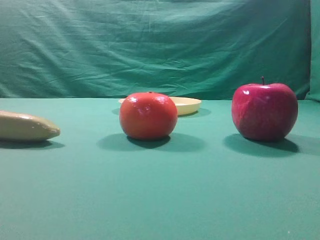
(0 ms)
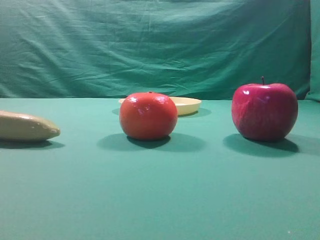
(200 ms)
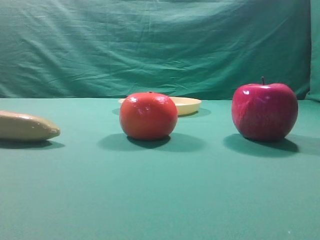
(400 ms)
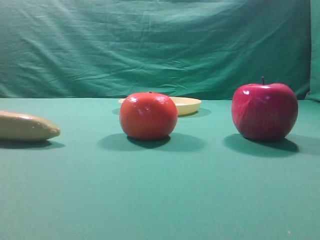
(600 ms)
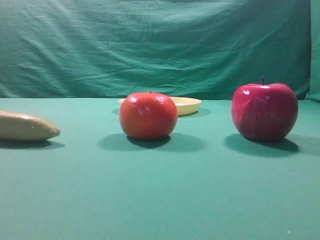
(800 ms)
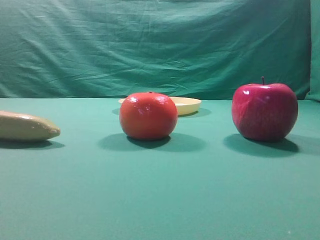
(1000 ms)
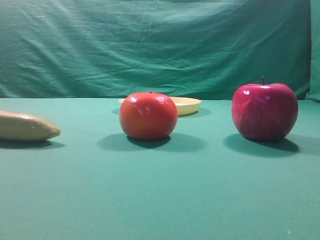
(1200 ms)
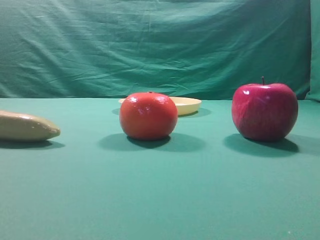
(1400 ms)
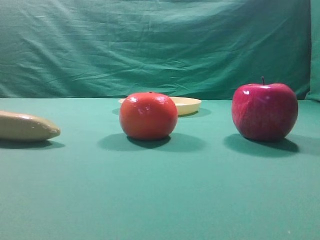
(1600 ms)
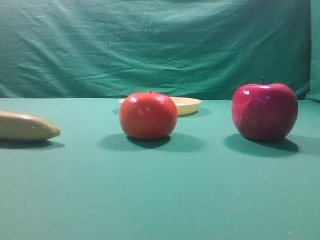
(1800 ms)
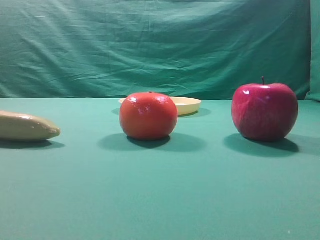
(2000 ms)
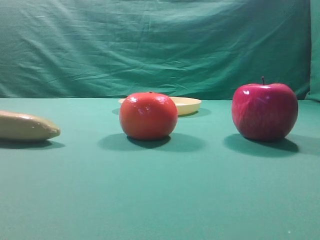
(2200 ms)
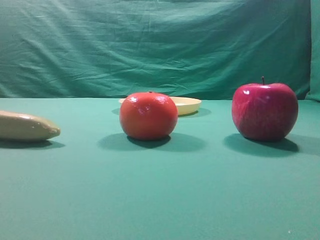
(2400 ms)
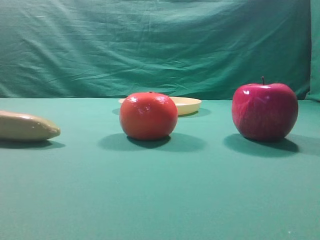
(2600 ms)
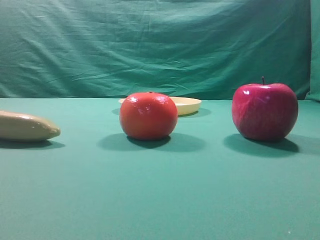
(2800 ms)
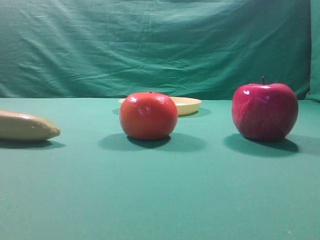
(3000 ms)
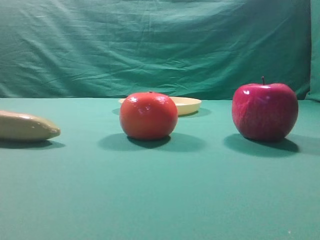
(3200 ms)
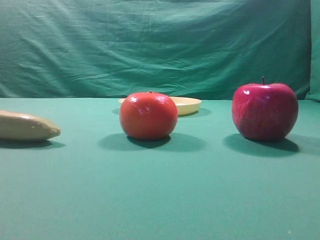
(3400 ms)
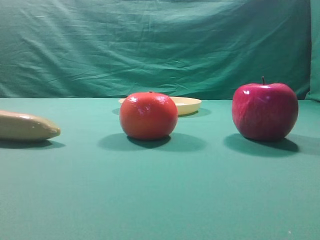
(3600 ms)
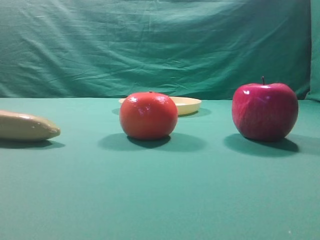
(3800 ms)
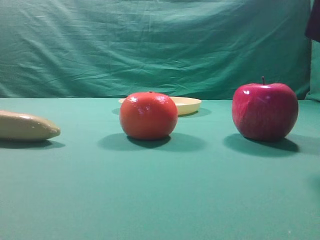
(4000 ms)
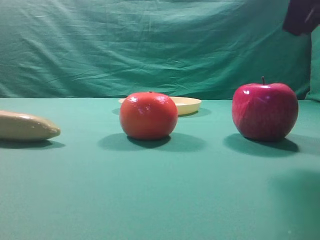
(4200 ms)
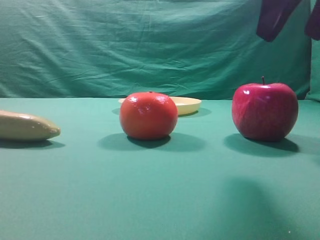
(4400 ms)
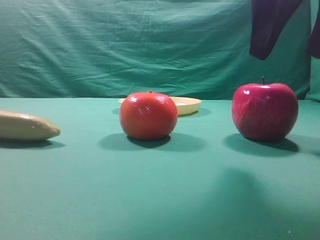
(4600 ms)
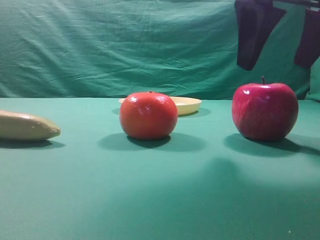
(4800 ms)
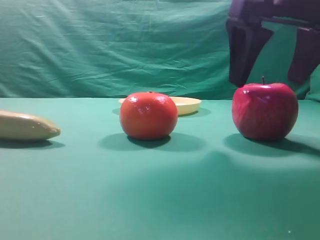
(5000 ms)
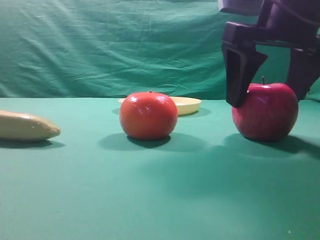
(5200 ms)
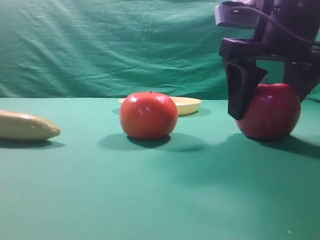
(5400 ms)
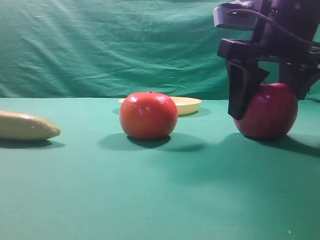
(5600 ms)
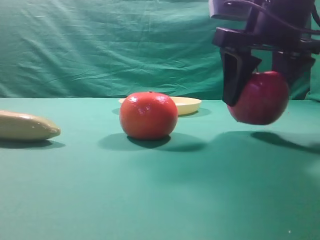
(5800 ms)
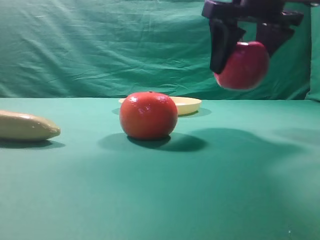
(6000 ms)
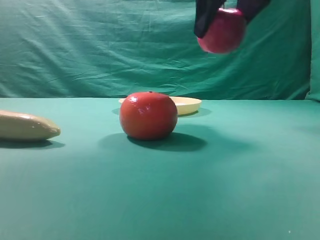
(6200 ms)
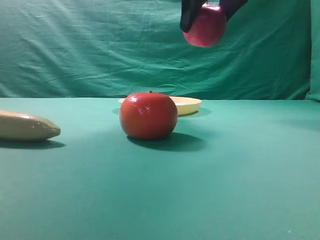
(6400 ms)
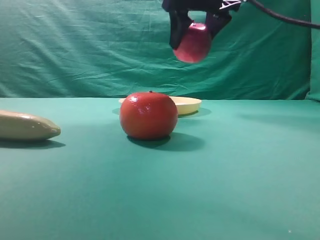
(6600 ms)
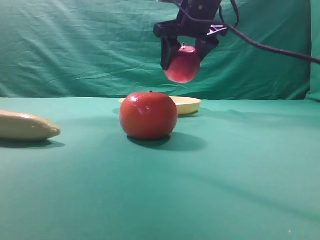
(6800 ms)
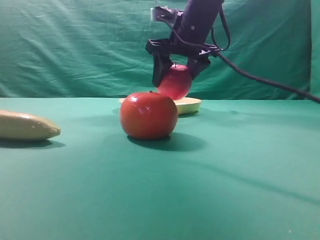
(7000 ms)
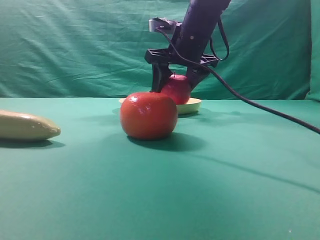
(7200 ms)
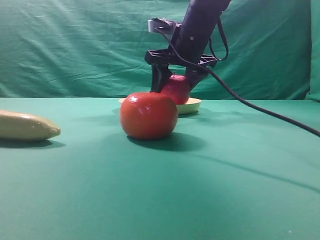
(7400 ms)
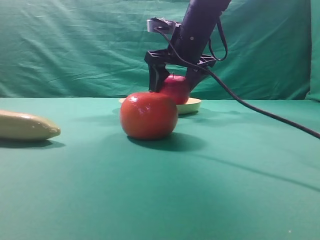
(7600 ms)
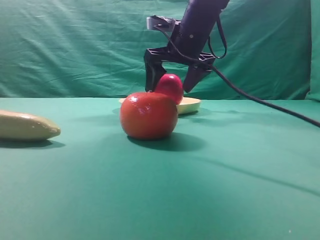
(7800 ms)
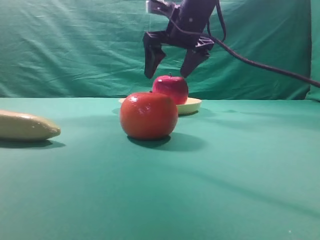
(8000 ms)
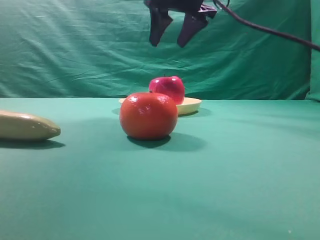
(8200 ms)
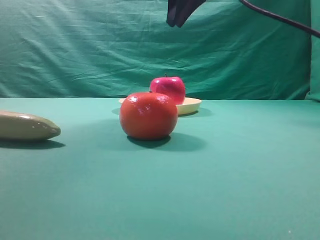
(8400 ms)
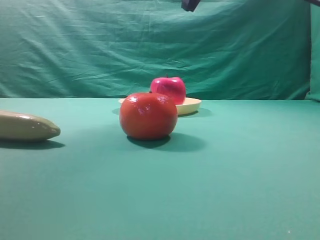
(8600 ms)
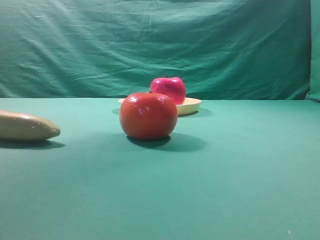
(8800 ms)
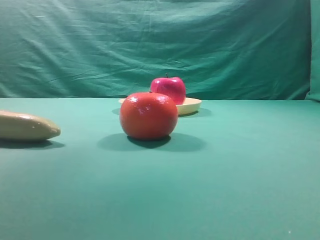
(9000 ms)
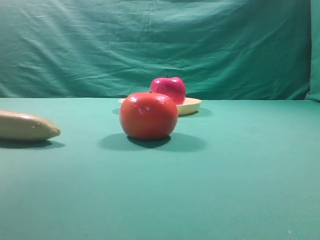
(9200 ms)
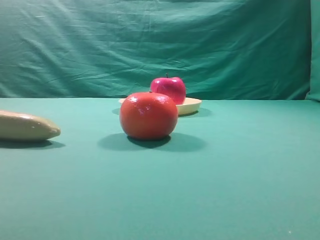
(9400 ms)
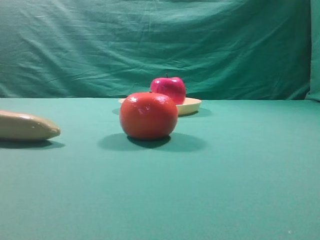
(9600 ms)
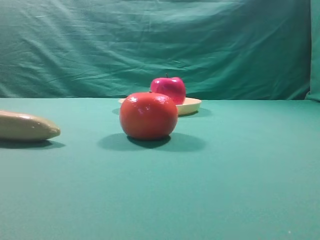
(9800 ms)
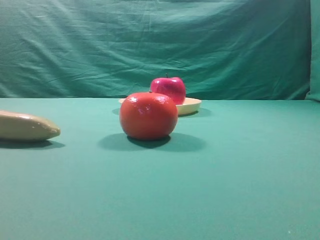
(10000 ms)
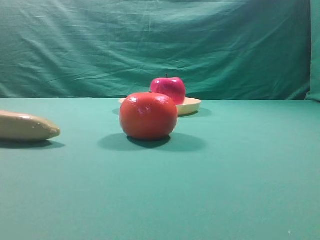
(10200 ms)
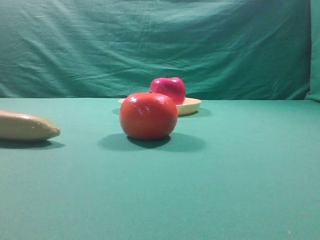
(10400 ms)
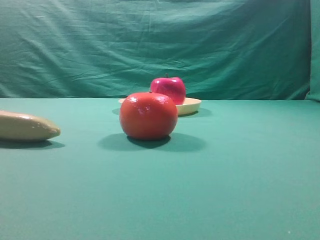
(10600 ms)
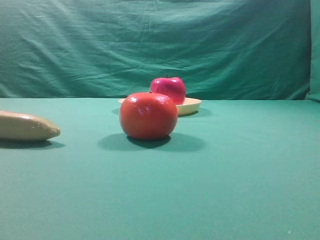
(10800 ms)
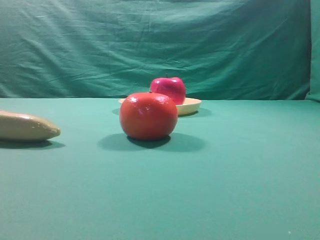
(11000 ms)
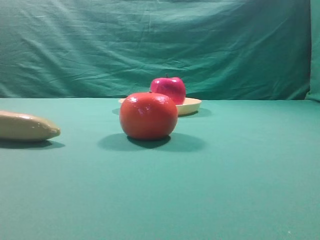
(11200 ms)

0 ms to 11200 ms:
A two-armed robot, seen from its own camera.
Task of the whole recording: grasp the apple and place it into the yellow plate.
Step, 0 ms to 5800 ms: Grasp the fruit that can keep the doctor away.
Step, 6000 ms to 8000 ms: Place the picked object into the yellow plate.
